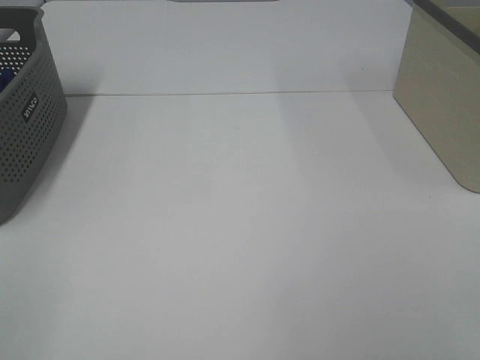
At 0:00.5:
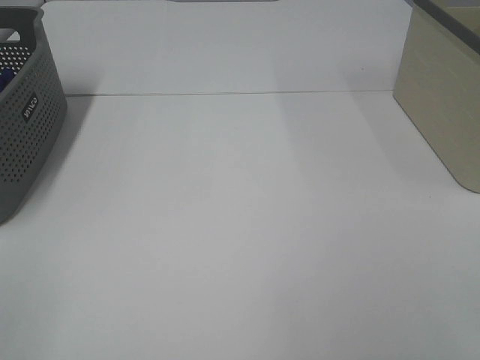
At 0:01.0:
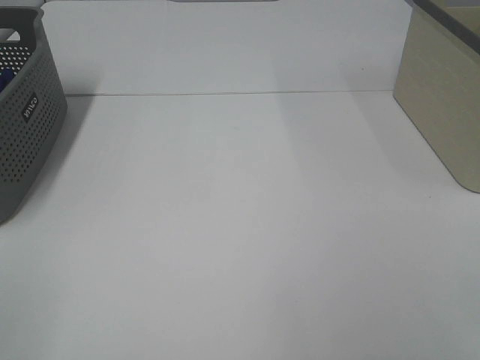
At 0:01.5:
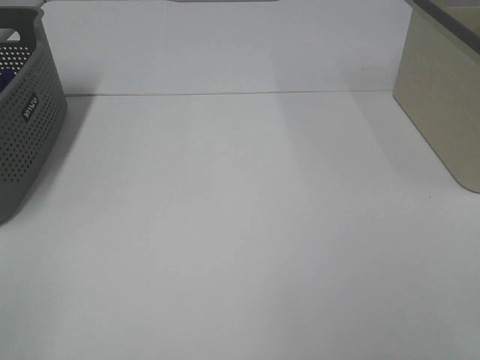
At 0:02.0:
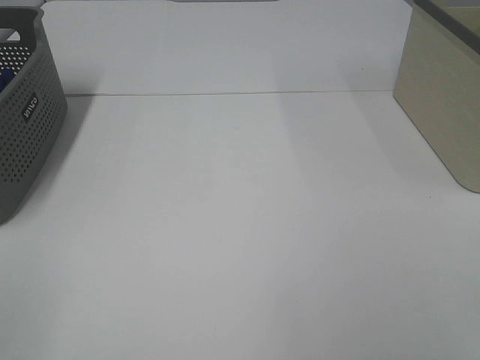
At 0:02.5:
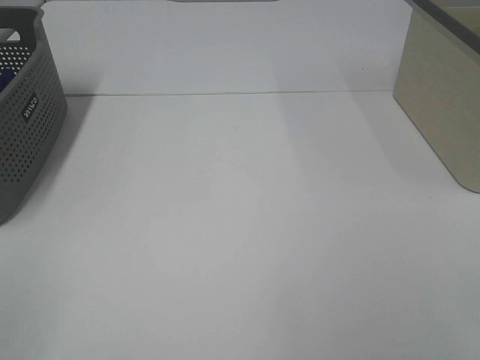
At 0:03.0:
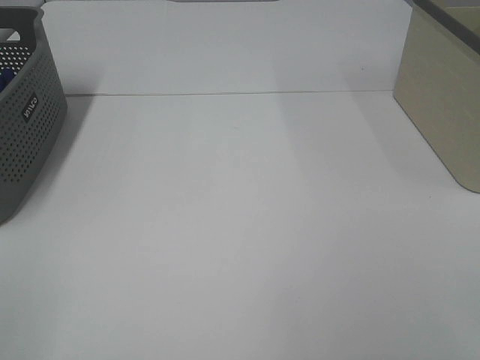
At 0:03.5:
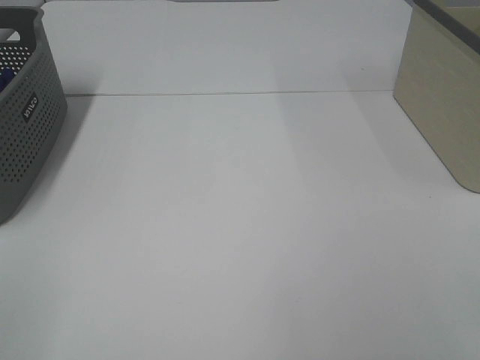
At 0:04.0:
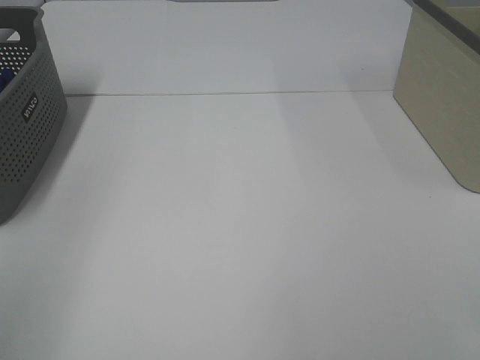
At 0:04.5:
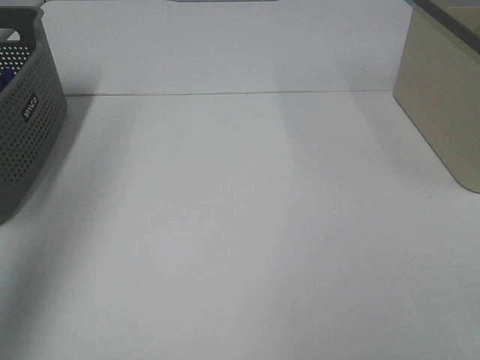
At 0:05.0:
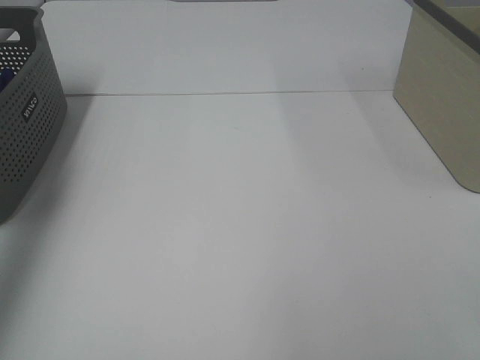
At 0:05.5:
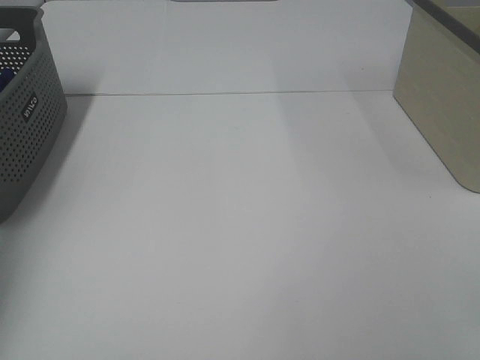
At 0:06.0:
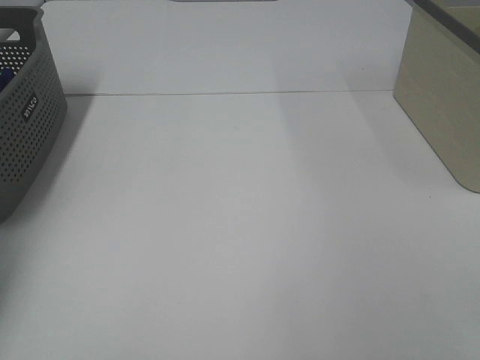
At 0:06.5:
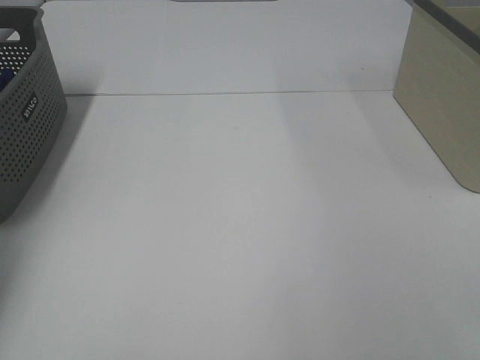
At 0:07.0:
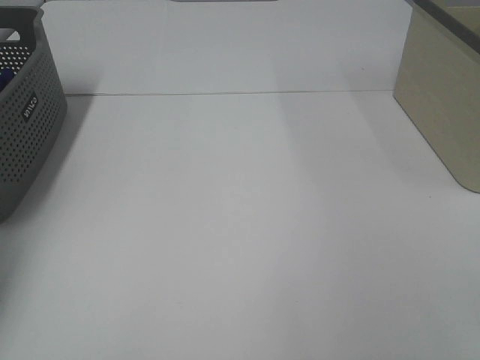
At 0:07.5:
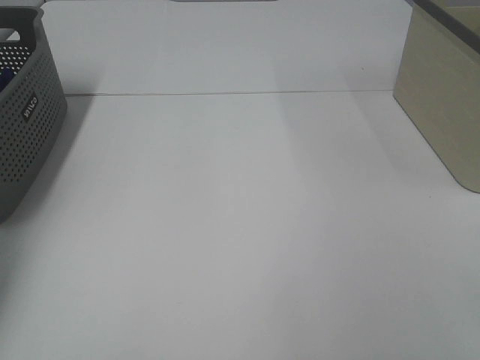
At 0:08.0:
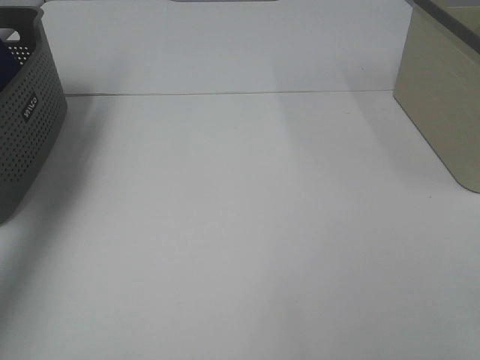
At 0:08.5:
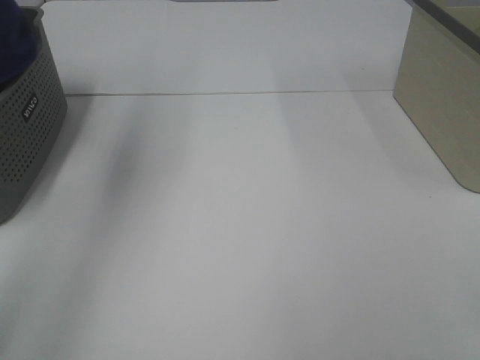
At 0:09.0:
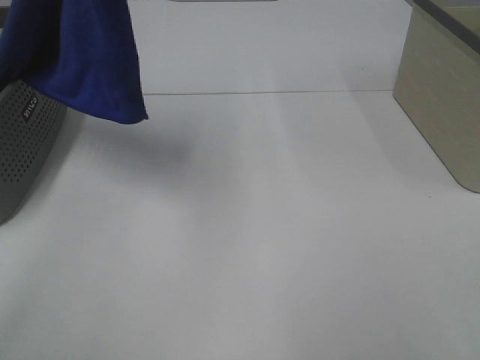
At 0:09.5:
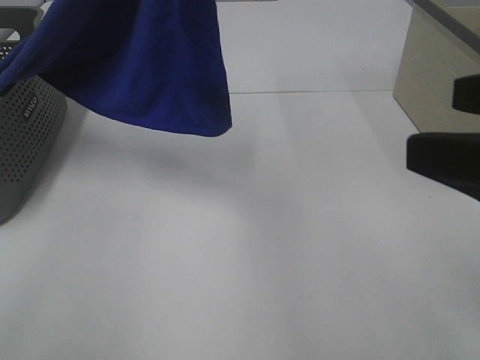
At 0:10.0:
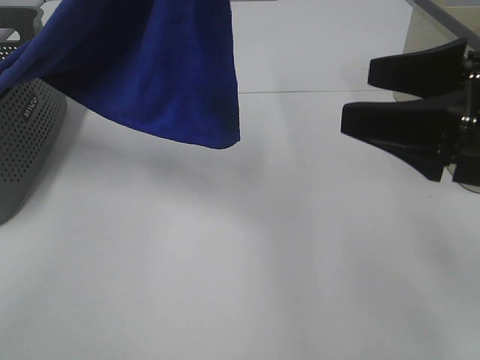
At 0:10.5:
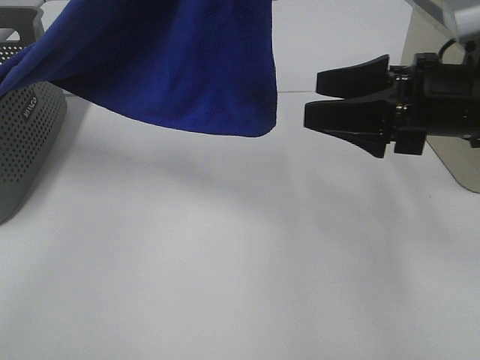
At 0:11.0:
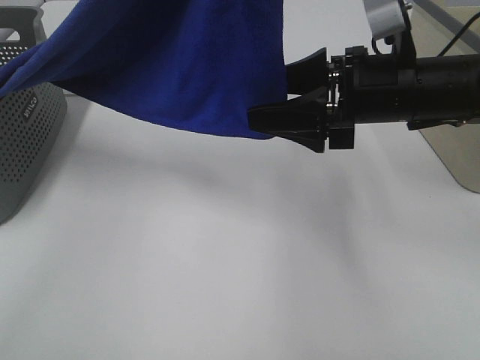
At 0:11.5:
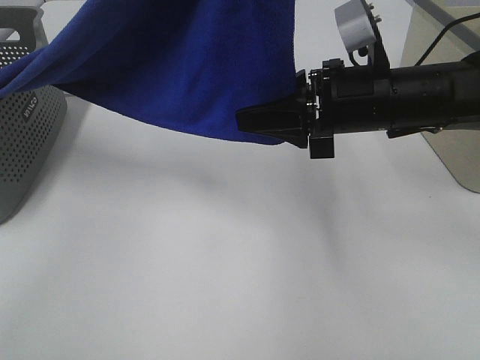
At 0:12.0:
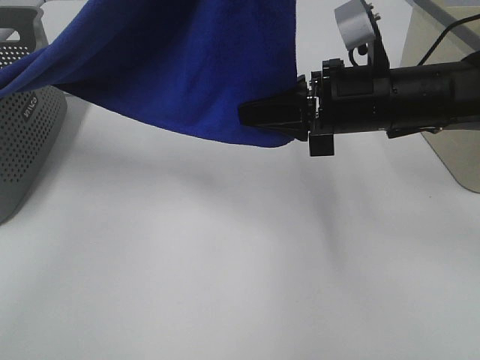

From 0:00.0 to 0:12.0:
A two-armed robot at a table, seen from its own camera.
Task of the whole recording: Remove the towel and place it.
From 0:00.0 to 0:02.0: The two grippers keep their place.
From 0:04.0 to 0:06.0: The left gripper shifts about 40 cm forward and downward.
From 0:06.0 to 0:08.0: The left gripper goes some 20 cm upward, and closes.
From 0:08.0 to 0:10.0: The left gripper travels to the right and backward by some 35 cm. Meanwhile the right gripper travels forward by approximately 20 cm.
From 0:10.0 to 0:12.0: The right gripper shifts roughly 15 cm forward, to the left and downward, and closes up.

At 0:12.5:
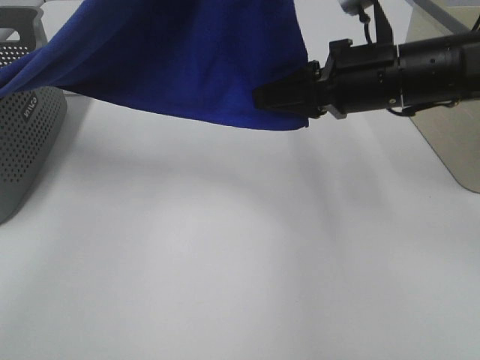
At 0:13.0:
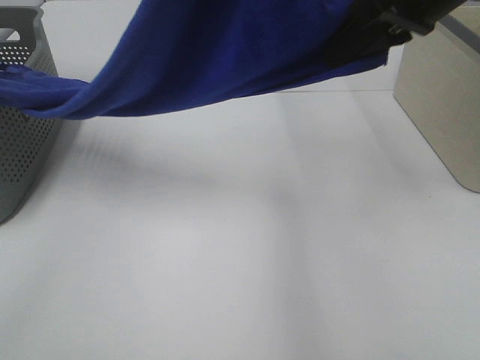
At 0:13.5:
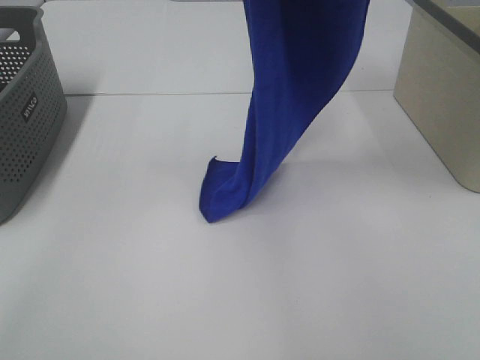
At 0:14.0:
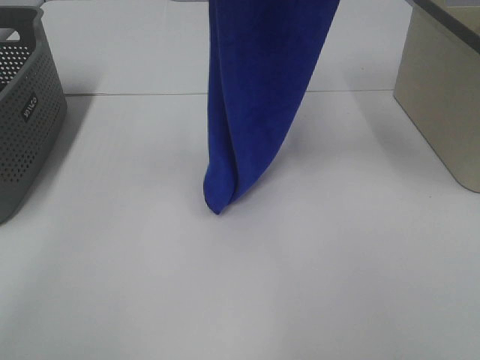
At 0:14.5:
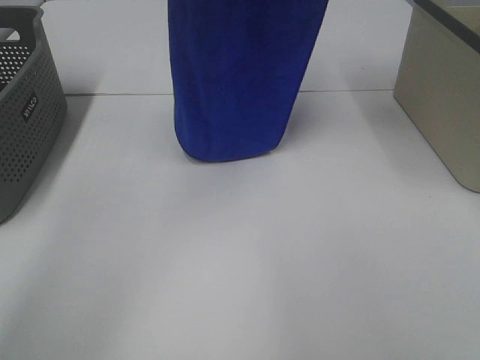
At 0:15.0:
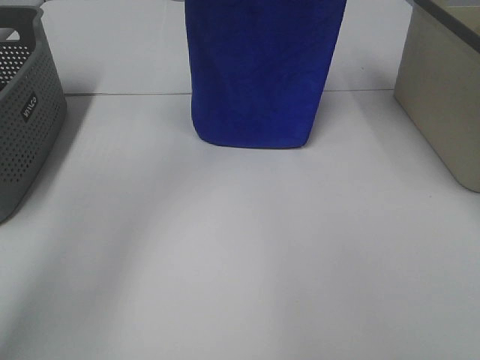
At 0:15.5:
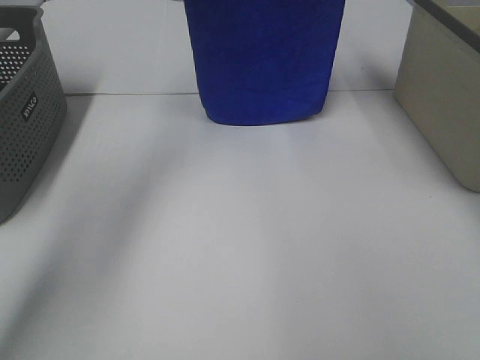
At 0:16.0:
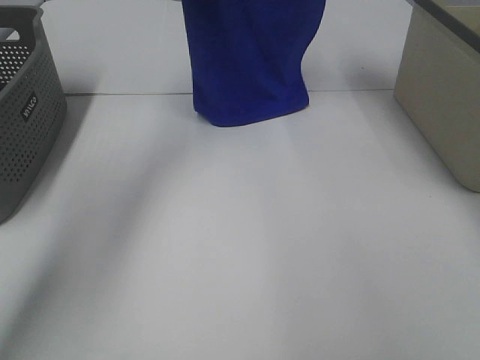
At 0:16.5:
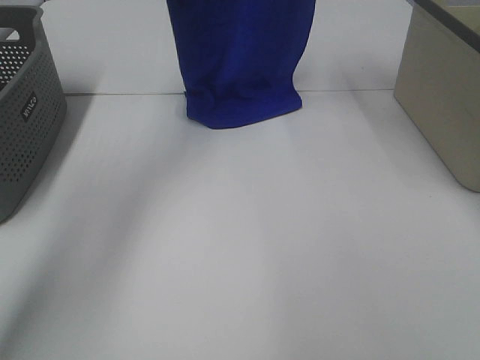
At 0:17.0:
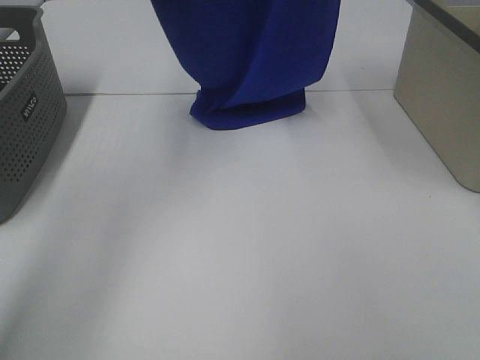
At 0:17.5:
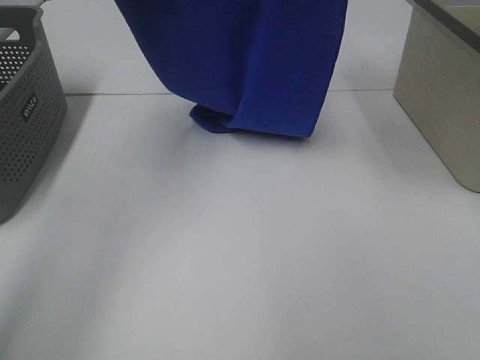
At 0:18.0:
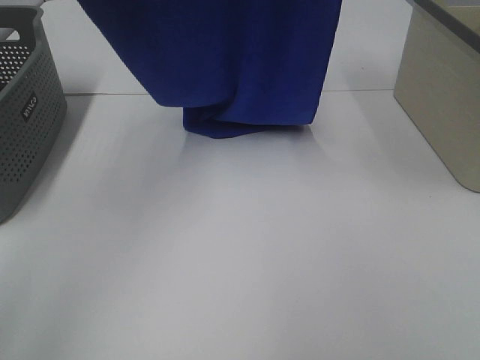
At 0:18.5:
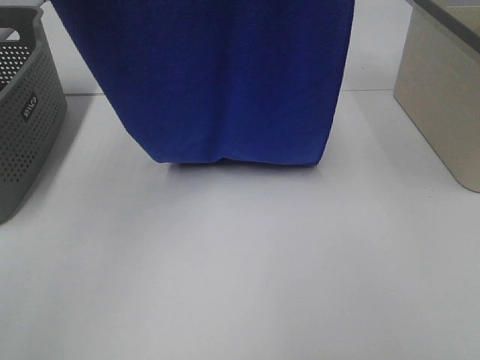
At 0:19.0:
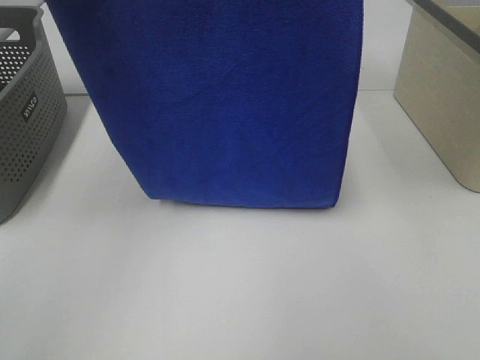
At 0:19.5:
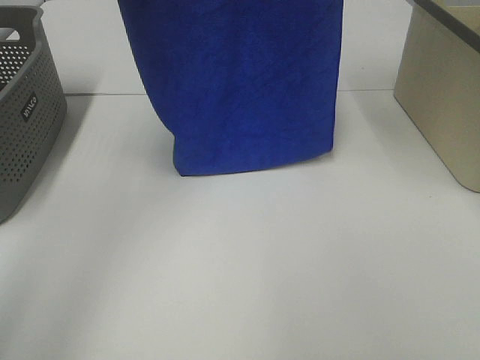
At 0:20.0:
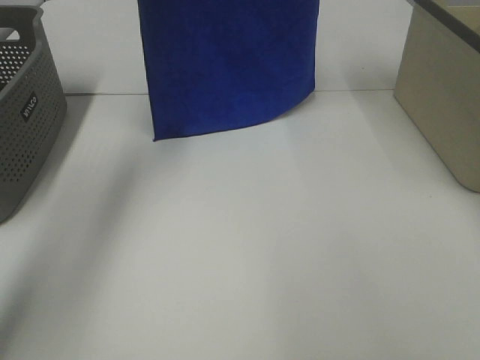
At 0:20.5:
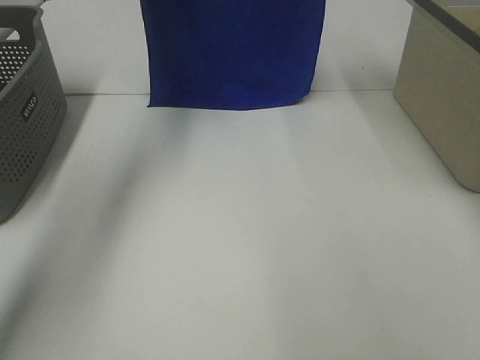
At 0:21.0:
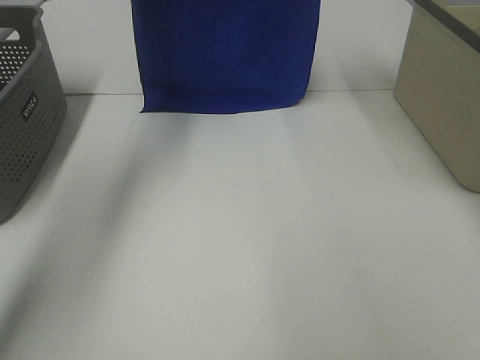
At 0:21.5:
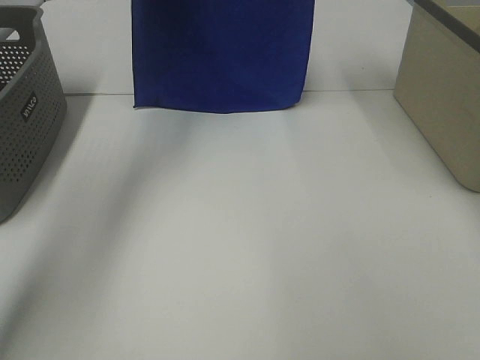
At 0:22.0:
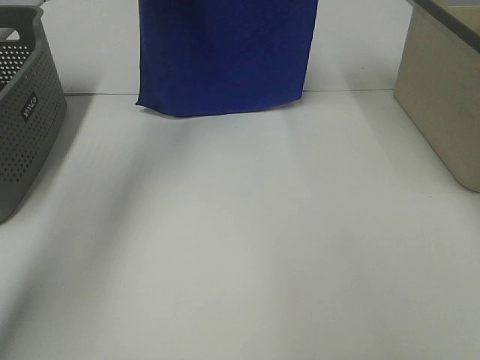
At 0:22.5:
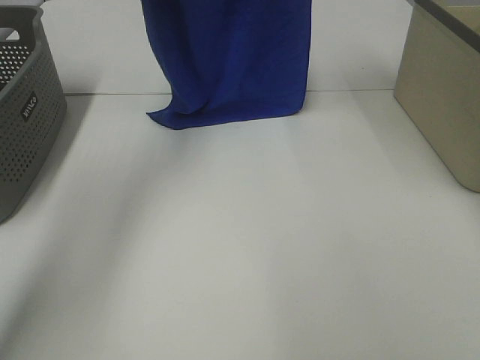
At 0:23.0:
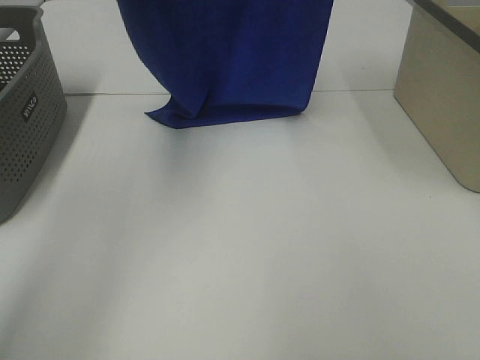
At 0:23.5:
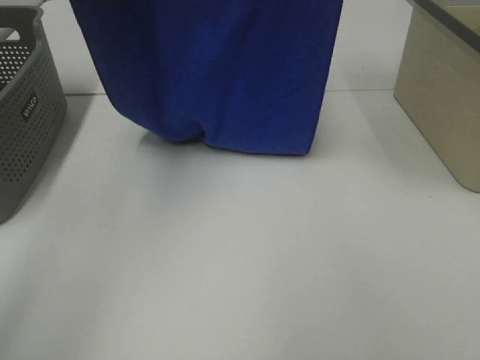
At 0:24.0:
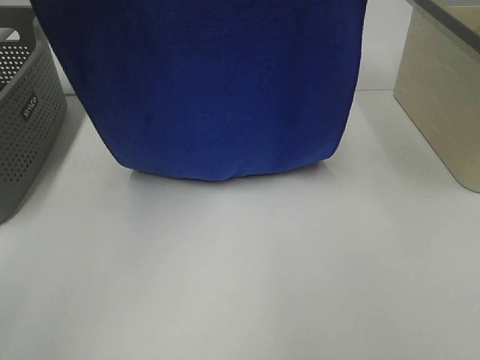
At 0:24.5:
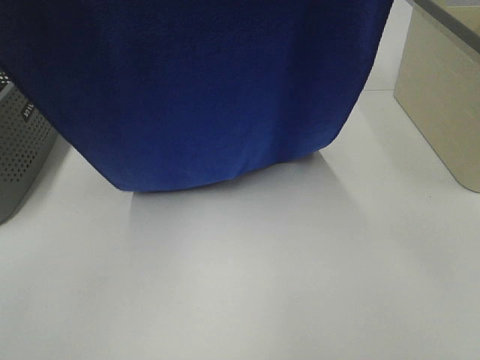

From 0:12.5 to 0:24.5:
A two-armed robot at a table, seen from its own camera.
Task of the whole recording: Remove the towel and place it.
Step, from 0:12.5 to 0:15.0: Right hand: grab a corner of the blue towel and straighten it.
Step, from 0:15.5 to 0:23.0: Left hand: spread the blue towel flat on the table.
Step, from 0:15.5 to 0:23.0: Right hand: spread the blue towel flat on the table.
From 0:12.5 to 0:14.5: The right gripper travels upward by some 25 cm. The left gripper goes roughly 20 cm forward and to the left.
From 0:14.5 to 0:16.5: The left gripper is displaced forward and downward by approximately 10 cm. Meanwhile the right gripper shifts some 5 cm forward.
From 0:16.5 to 0:18.5: The left gripper heads backward, covering approximately 20 cm. Meanwhile the right gripper is displaced backward and upward by roughly 20 cm.
From 0:18.5 to 0:20.5: Both grippers move forward, approximately 20 cm.
From 0:22.5 to 0:24.5: The grippers both shift backward by approximately 25 cm.

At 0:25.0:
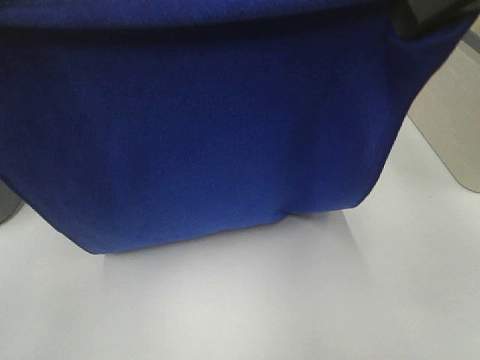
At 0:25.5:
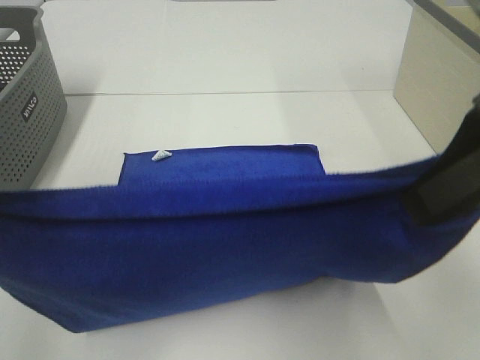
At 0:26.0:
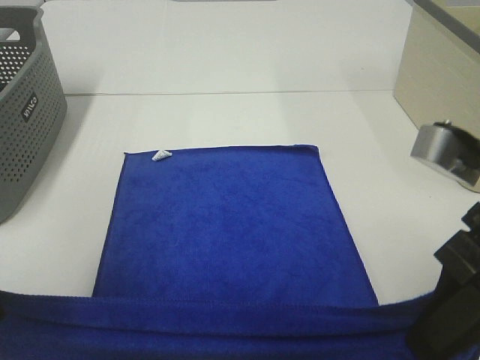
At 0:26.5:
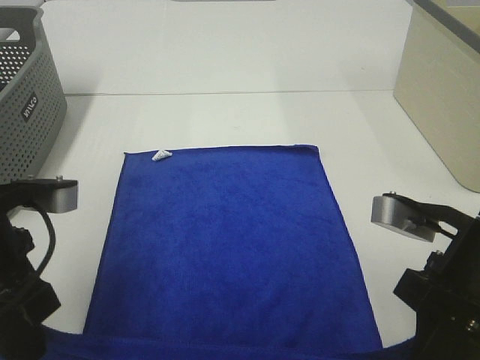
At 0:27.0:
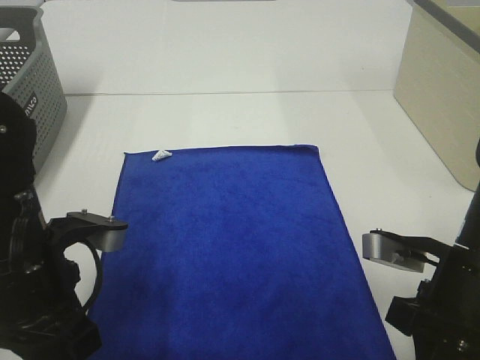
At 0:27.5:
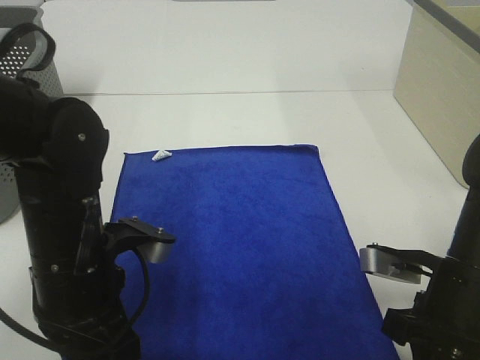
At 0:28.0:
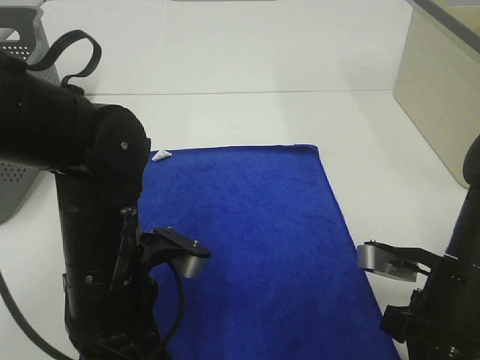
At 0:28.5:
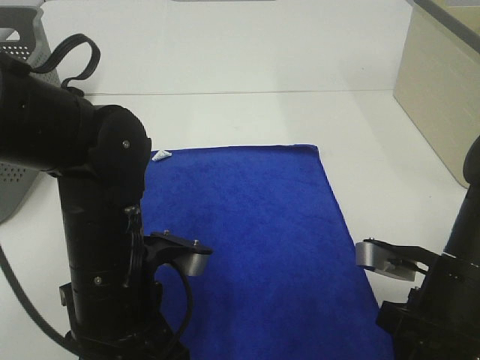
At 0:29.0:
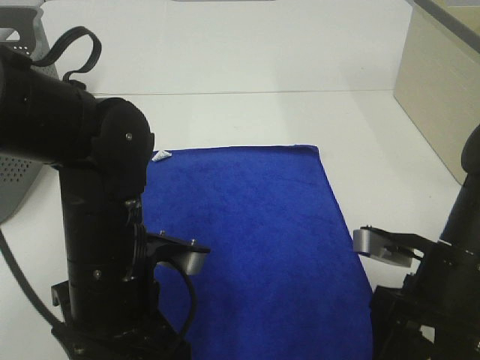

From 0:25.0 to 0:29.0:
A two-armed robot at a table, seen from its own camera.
Task of the whole recording: Remove the towel and place it.
From 0:25.0 to 0:27.0: The grippers both shift downward by approximately 25 cm.
From 0:27.0 to 0:29.0: The left gripper is displaced to the right by some 10 cm, and opens; the right gripper opens up.
